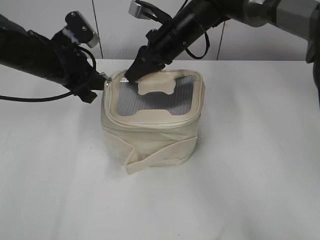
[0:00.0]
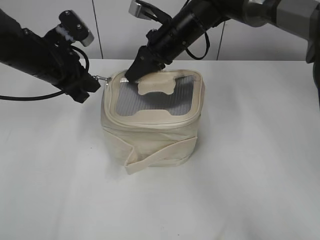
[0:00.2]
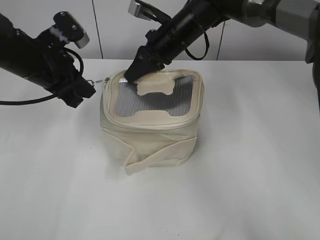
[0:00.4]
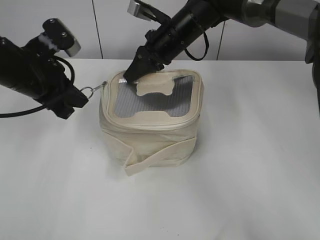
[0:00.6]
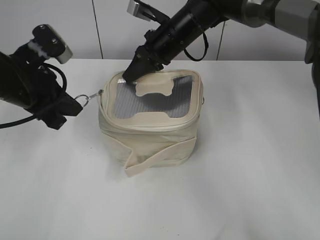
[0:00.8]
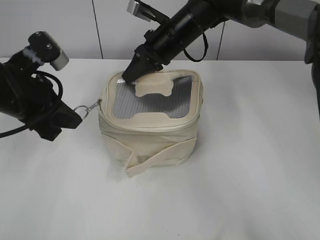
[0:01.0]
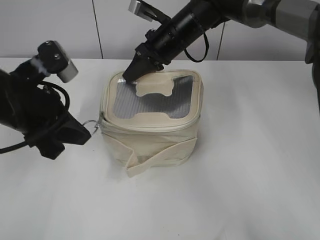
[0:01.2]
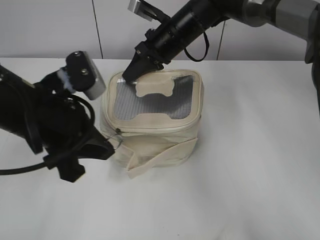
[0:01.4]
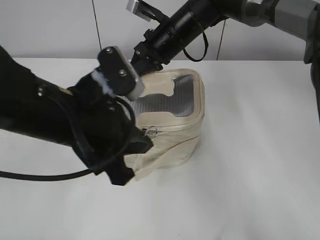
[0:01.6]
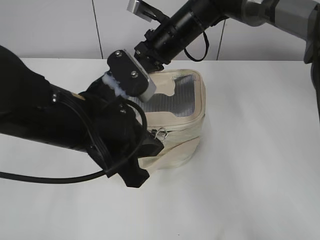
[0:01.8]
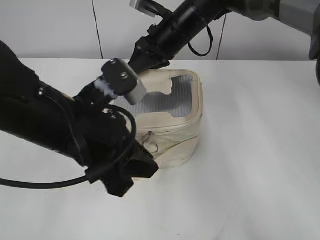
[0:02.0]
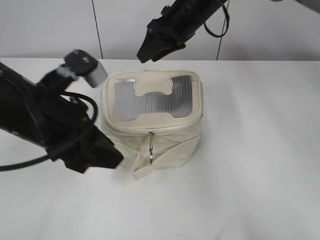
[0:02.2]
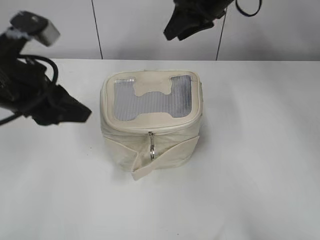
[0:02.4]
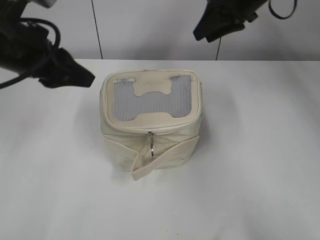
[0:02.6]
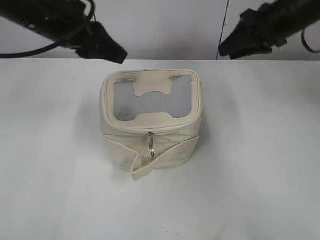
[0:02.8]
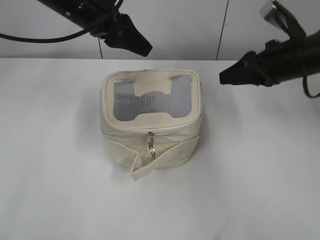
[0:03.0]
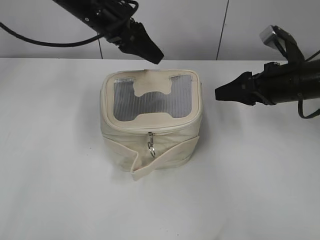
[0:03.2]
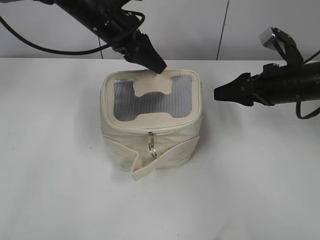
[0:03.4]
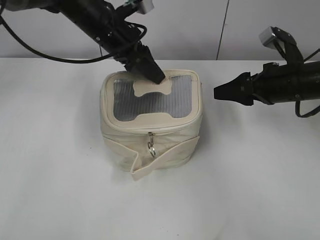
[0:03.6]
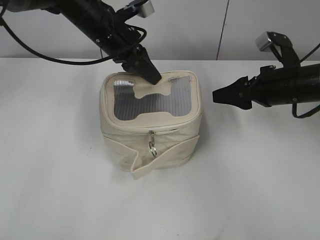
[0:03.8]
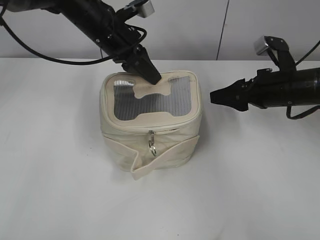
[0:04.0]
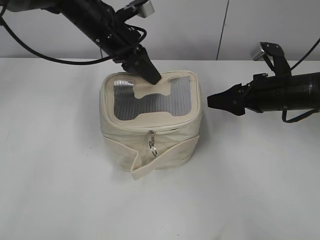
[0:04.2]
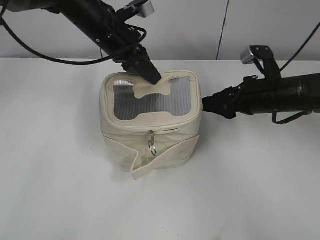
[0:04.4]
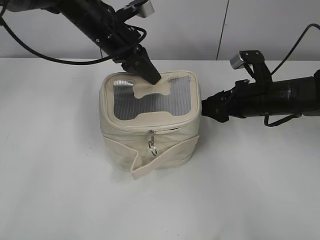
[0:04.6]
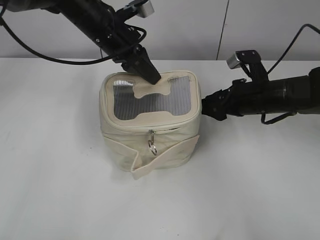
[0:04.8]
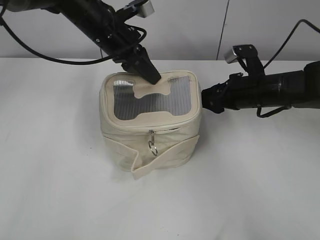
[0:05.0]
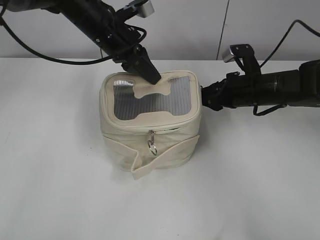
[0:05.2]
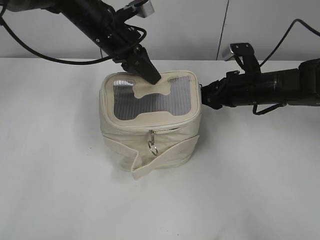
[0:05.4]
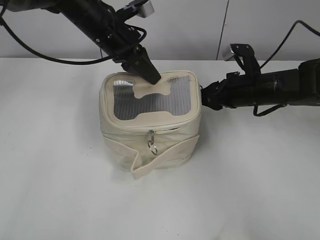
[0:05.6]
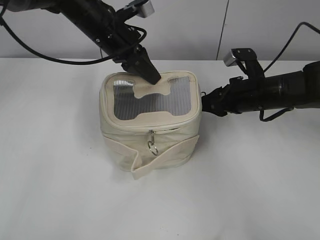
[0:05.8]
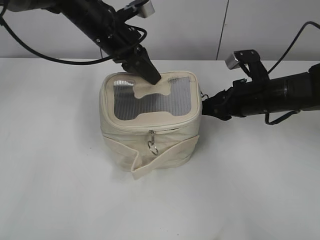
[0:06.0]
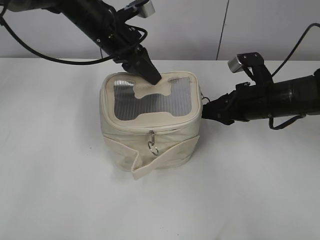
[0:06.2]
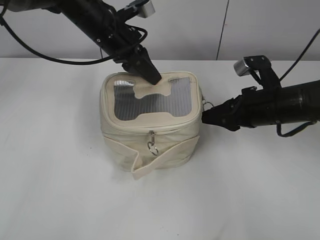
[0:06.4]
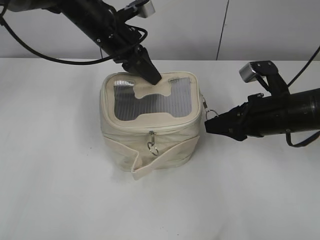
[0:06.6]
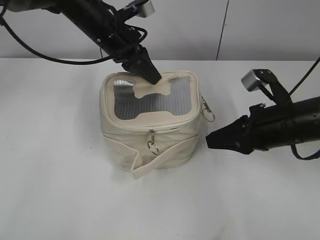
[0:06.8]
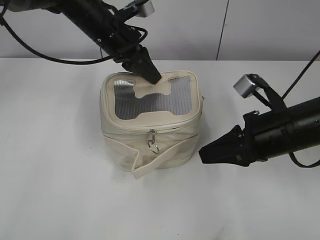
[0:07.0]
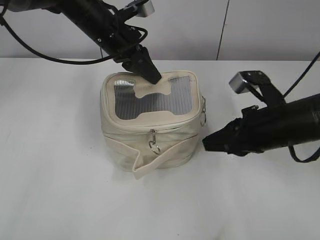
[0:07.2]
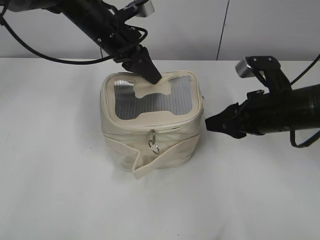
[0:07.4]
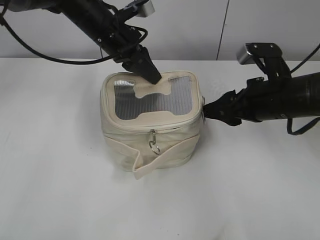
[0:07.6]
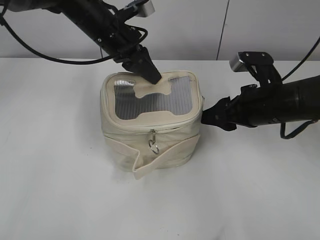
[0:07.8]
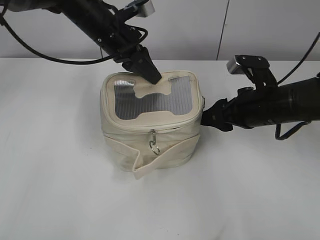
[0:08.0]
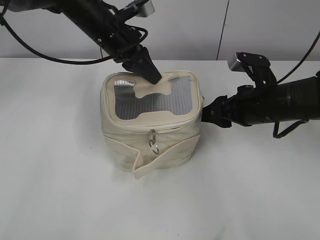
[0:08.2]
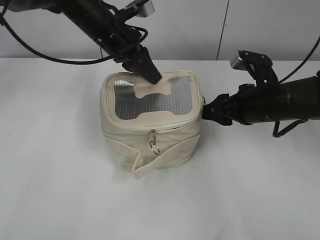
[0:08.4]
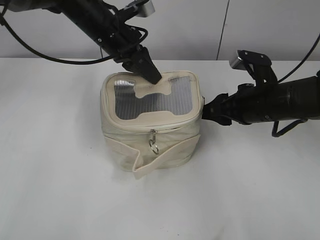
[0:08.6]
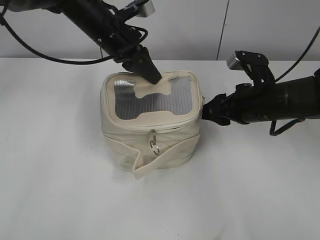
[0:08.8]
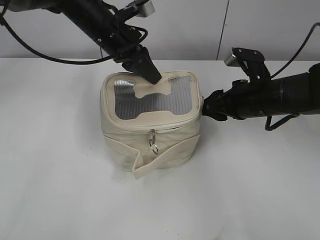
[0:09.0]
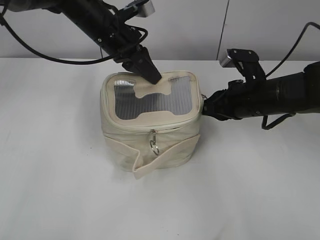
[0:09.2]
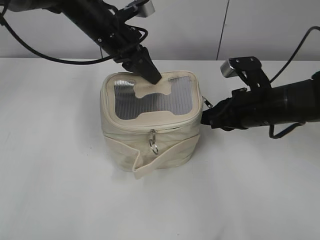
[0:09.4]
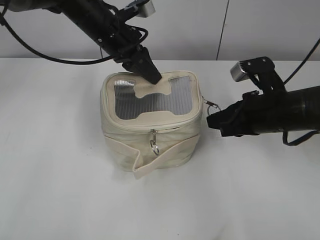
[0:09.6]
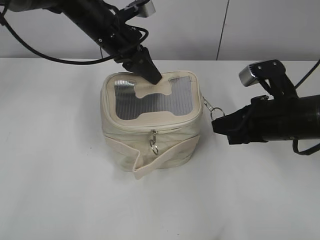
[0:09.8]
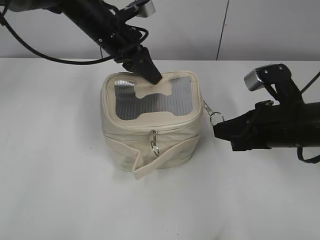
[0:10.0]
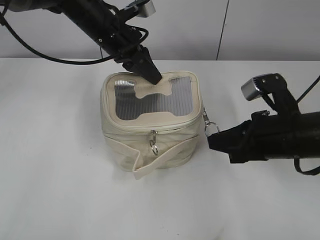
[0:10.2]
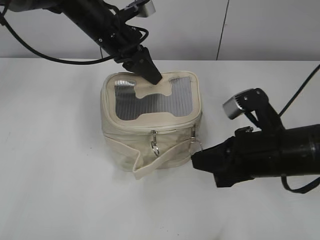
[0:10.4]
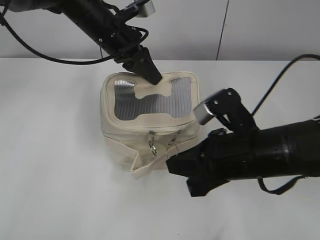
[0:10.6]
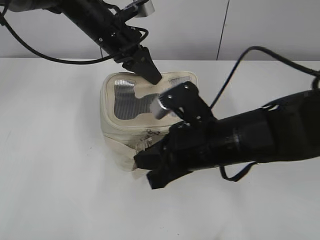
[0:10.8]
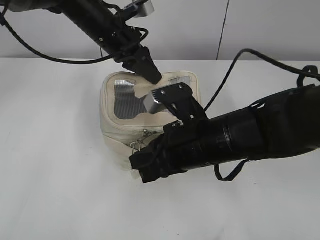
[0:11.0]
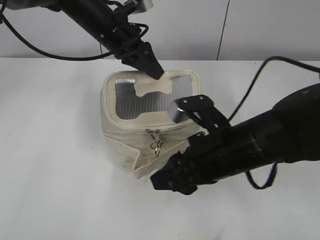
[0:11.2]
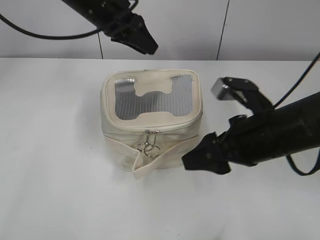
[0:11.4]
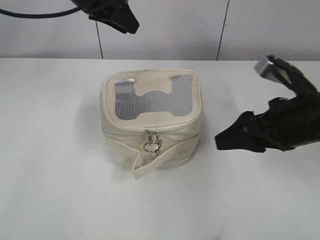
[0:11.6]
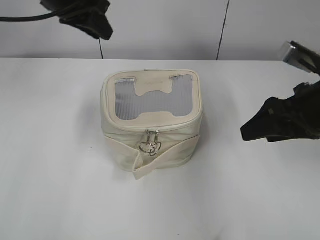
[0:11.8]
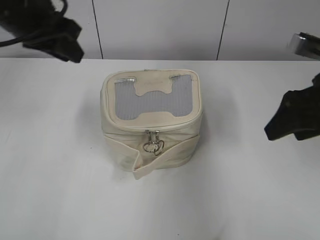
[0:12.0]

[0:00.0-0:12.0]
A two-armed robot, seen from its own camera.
Step, 0:02.2 to 0:11.0: Zip up the bag with your right hand.
0:00.0 to 0:01.6: The left gripper goes approximately 20 cm backward and to the right.
0:01.6 to 0:03.0: The right gripper goes some 20 cm to the right, and opens up. The left gripper moves forward, roughly 20 cm, and opens up.
0:03.0 to 0:04.4: Both grippers travel together downward, about 5 cm. The left gripper closes.
0:04.4 to 0:06.0: The right gripper closes up.
0:06.0 to 0:07.6: The right gripper travels backward by roughly 5 cm, and closes, then reopens.
0:07.6 to 0:09.0: The grippers make only small movements.
0:09.0 to 0:10.4: The right gripper moves backward, about 10 cm, and closes its fingers.
0:10.4 to 0:12.0: The left gripper shifts some 15 cm to the left, backward and upward. The right gripper shifts some 10 cm upward and to the right, and opens its fingers.

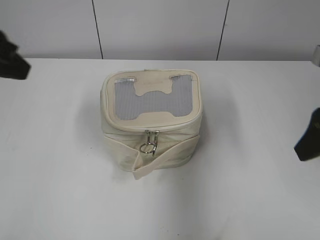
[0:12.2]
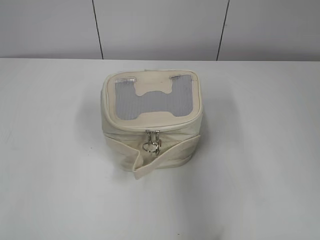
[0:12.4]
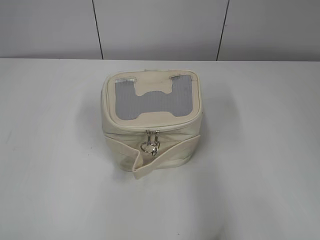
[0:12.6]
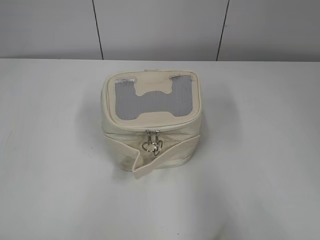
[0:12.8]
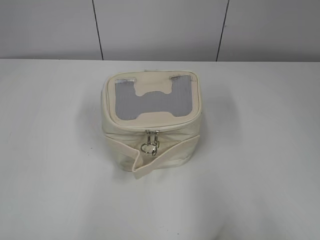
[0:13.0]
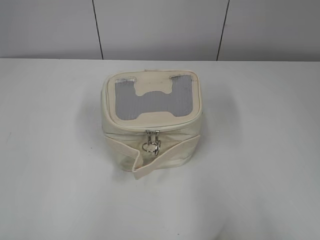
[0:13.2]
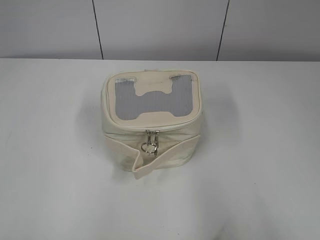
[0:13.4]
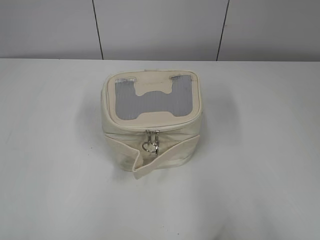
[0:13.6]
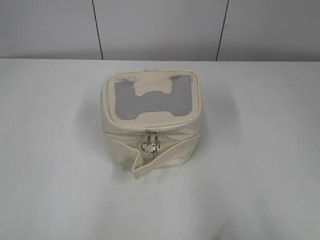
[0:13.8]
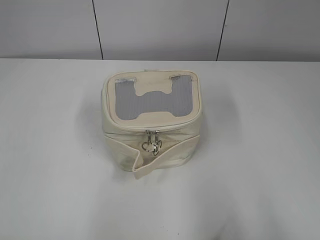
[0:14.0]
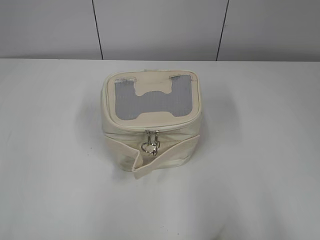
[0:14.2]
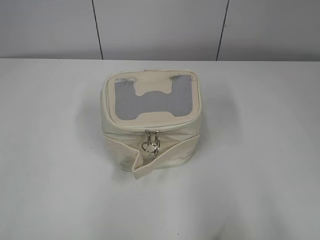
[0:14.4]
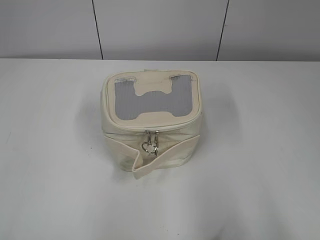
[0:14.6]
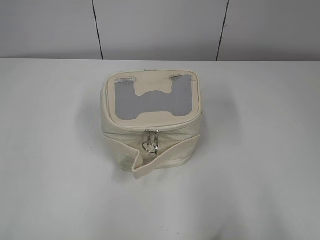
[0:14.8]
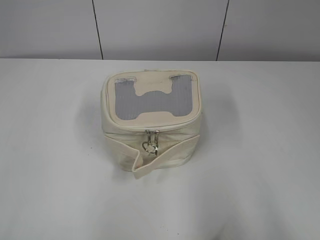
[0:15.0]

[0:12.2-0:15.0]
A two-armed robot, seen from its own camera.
0:12.2 to 0:13.6: Both grippers move backward, about 25 cm.

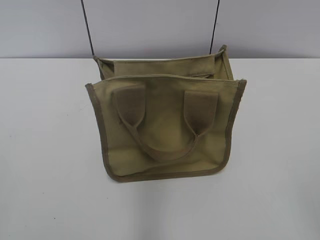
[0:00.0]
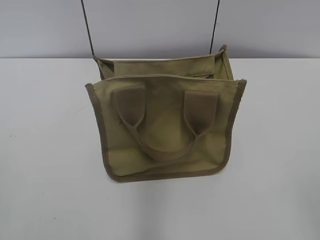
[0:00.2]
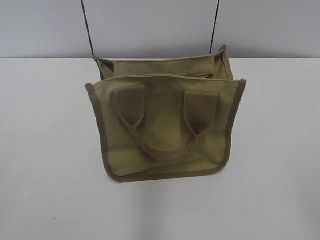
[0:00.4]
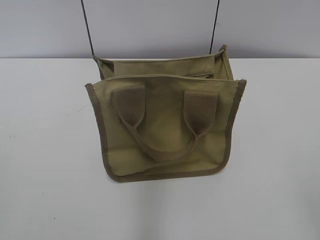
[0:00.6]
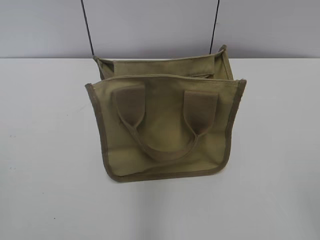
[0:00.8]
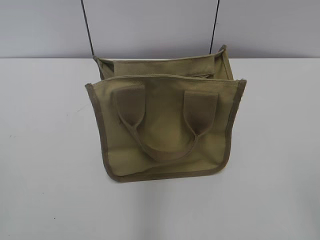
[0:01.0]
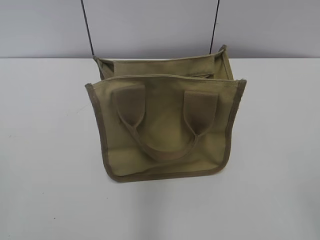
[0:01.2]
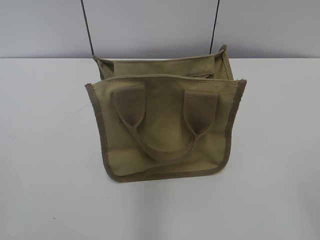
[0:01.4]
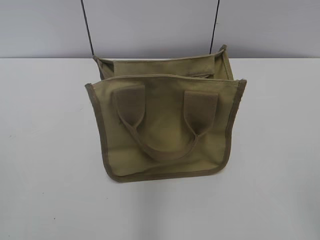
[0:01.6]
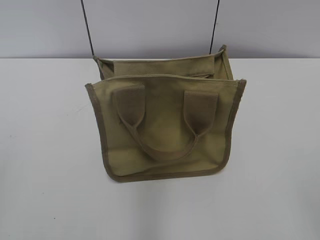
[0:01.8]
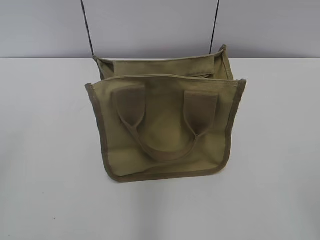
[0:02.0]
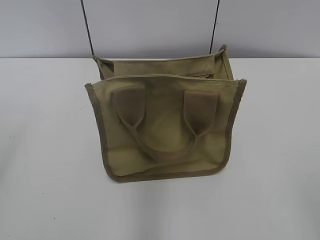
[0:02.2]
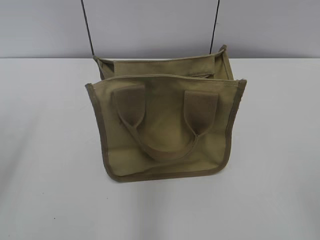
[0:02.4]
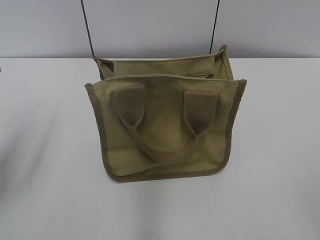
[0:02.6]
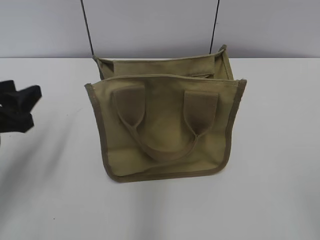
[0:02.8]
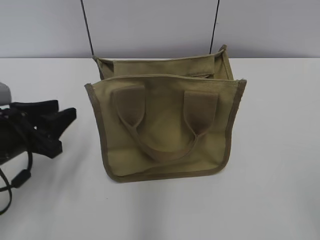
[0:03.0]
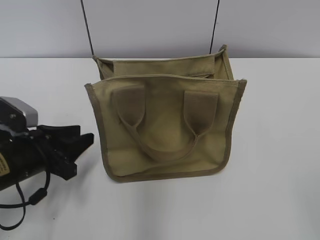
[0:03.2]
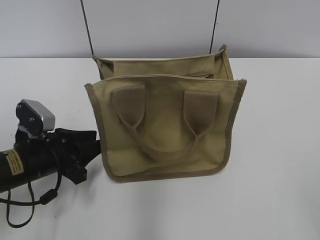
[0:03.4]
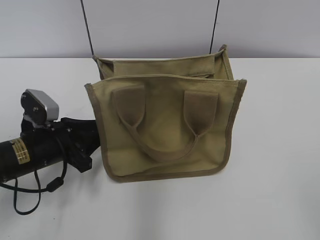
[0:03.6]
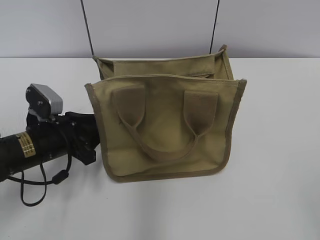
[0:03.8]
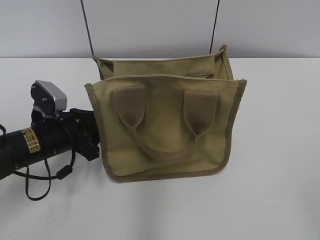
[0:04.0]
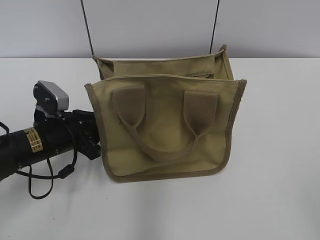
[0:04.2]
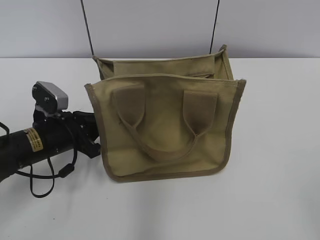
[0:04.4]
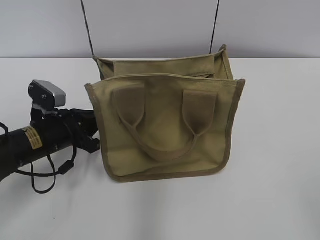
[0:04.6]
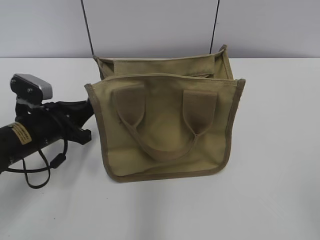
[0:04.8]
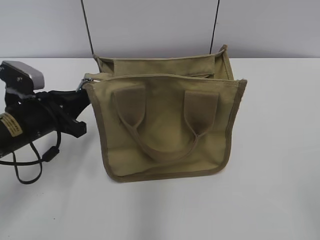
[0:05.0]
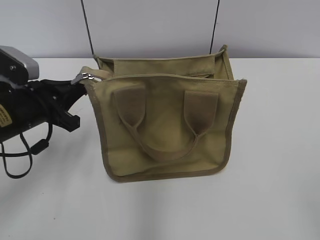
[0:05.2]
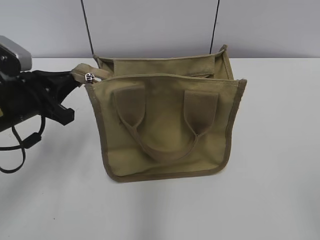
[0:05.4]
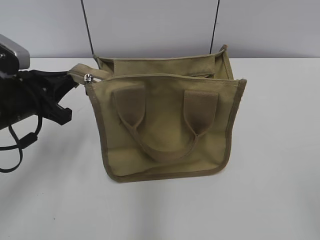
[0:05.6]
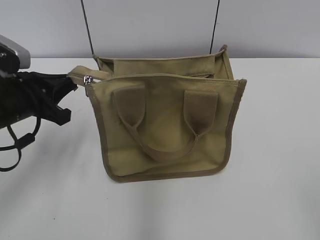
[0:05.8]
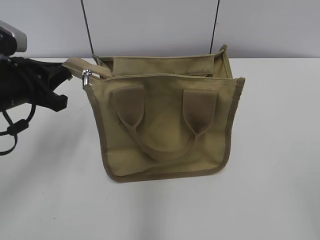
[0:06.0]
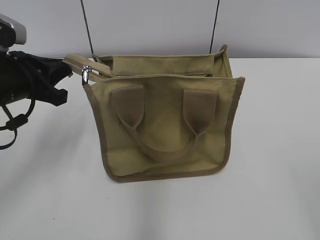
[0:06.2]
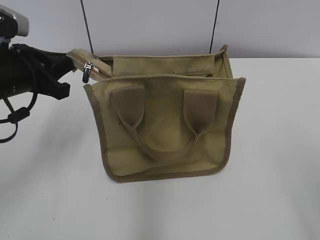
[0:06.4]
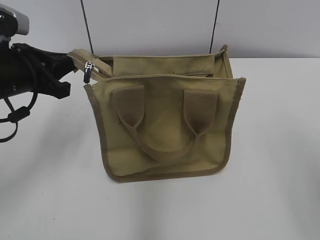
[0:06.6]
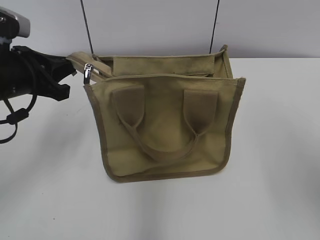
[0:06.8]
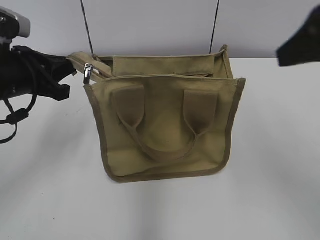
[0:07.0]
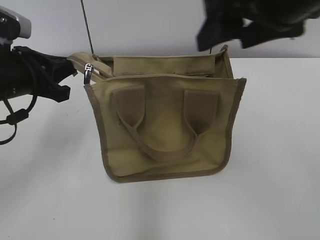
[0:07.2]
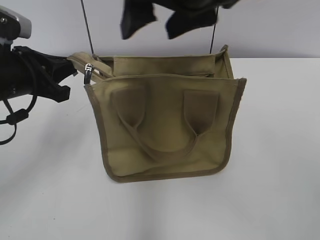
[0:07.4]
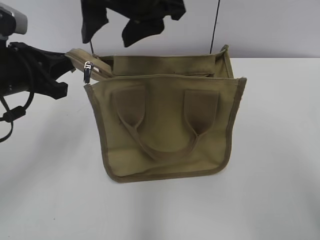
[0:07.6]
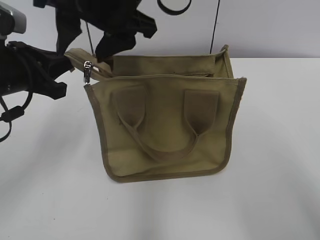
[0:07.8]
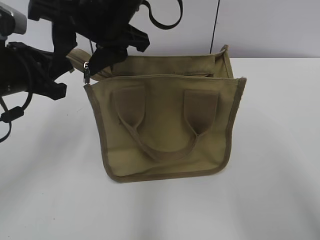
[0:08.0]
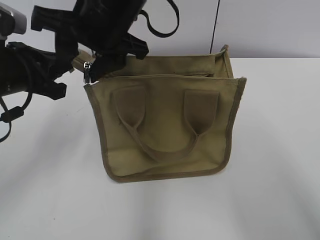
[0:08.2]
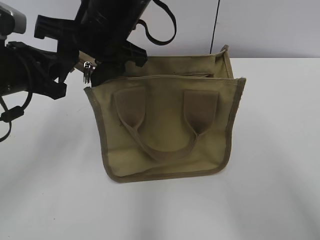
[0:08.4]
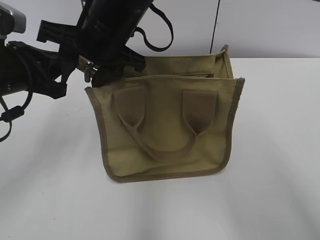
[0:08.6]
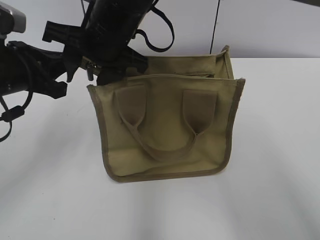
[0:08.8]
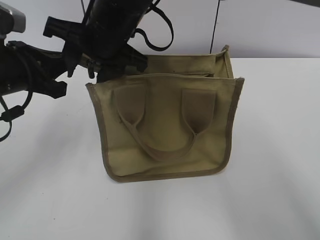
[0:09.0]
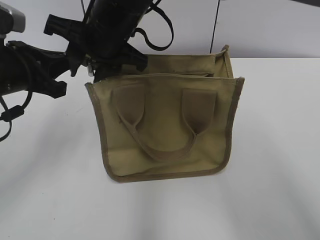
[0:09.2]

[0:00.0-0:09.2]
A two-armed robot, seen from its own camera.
0:01.6 to 0:03.0: The left gripper heads forward and downward, covering approximately 25 cm.
0:03.0 to 0:04.6: The left gripper goes approximately 10 cm forward and downward, and closes up.
0:04.6 to 0:06.2: The left gripper travels upward by approximately 10 cm.
0:06.2 to 0:07.6: The right gripper travels forward and to the left by roughly 40 cm.
0:07.6 to 0:09.2: The right gripper is displaced downward by about 10 cm.
